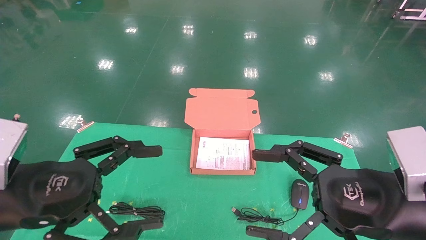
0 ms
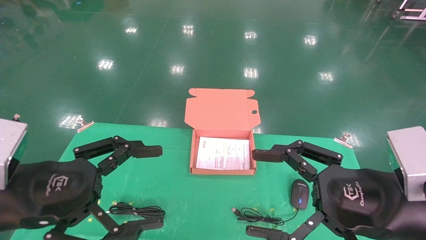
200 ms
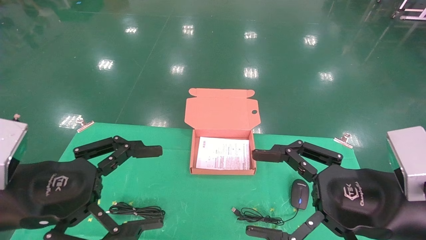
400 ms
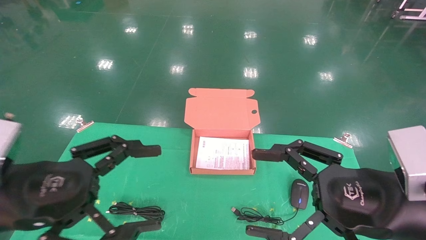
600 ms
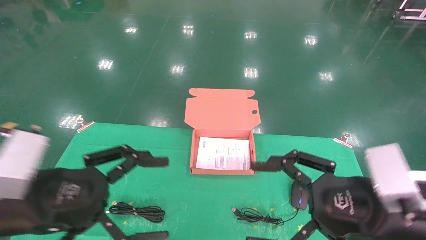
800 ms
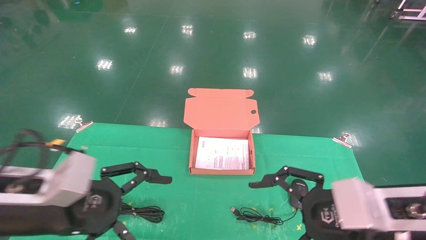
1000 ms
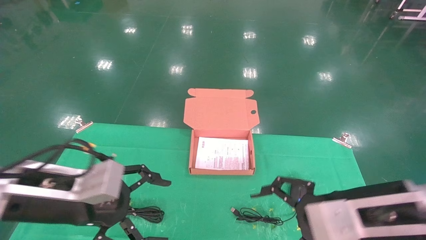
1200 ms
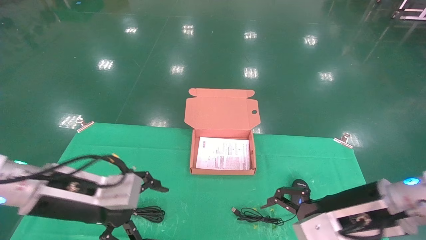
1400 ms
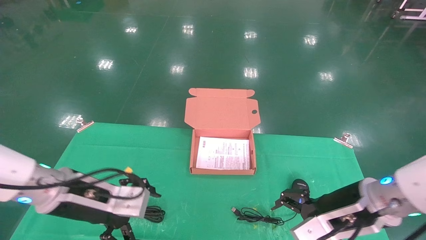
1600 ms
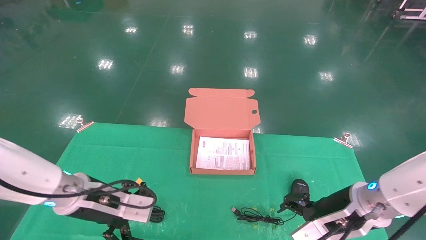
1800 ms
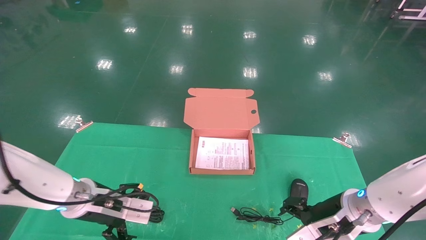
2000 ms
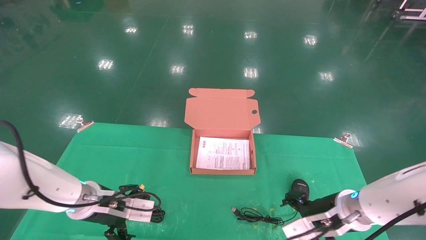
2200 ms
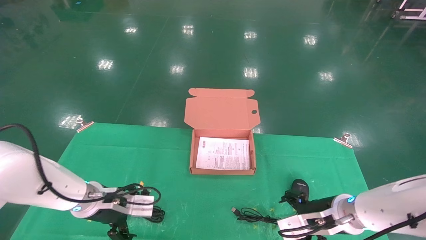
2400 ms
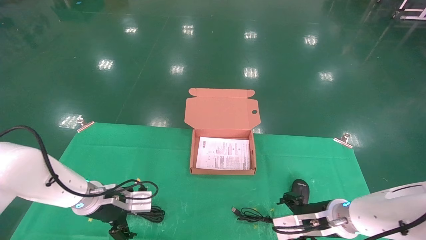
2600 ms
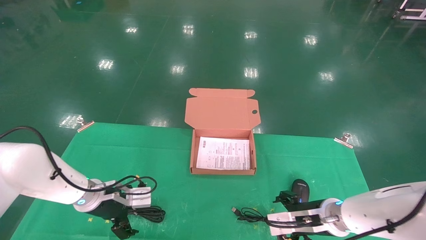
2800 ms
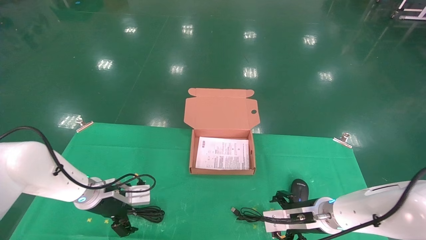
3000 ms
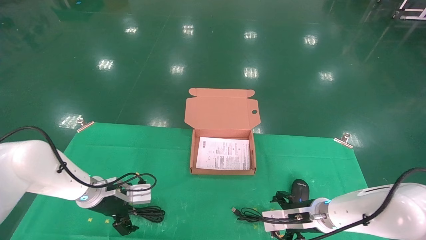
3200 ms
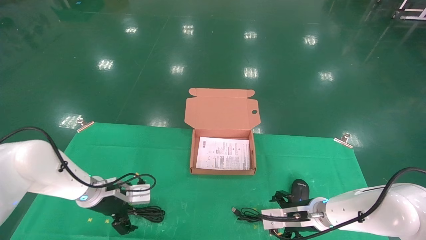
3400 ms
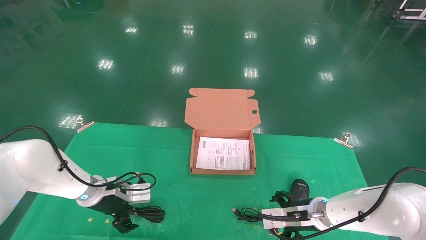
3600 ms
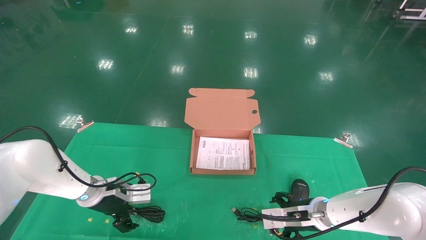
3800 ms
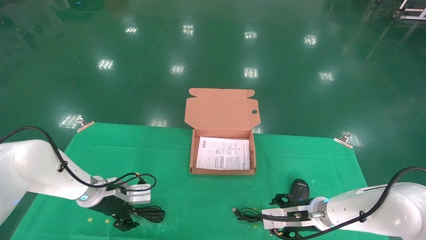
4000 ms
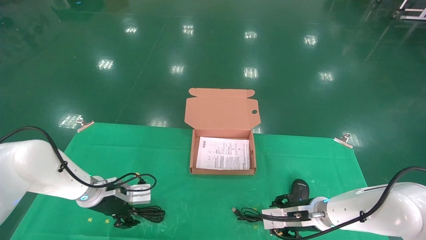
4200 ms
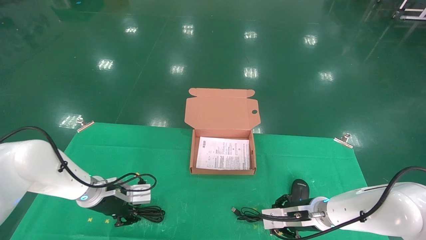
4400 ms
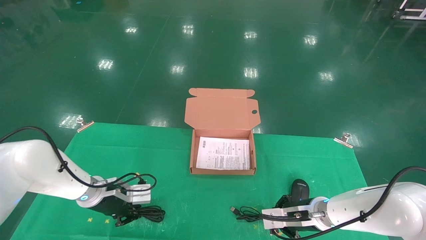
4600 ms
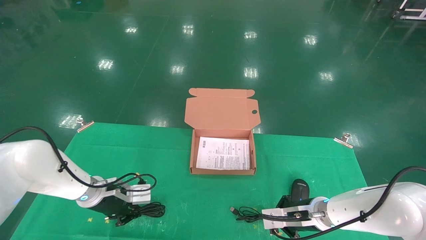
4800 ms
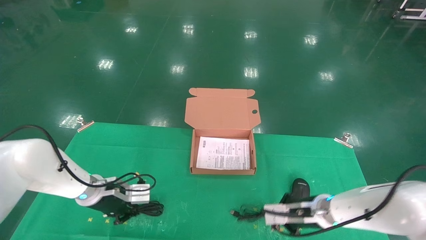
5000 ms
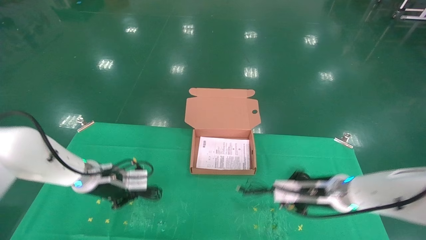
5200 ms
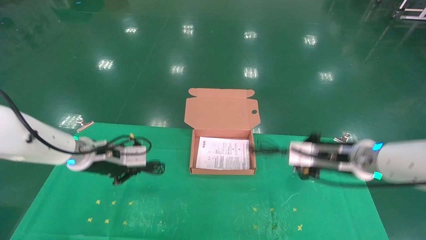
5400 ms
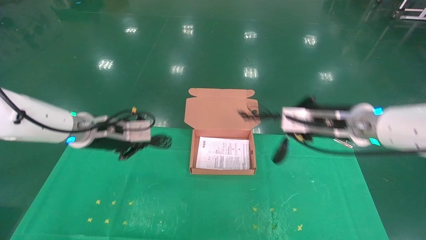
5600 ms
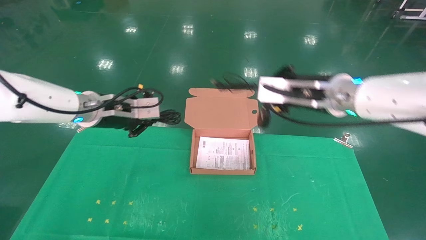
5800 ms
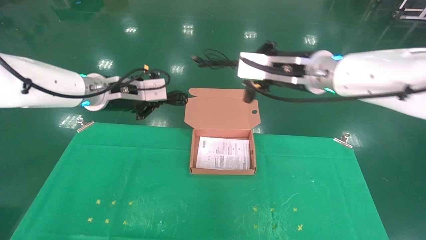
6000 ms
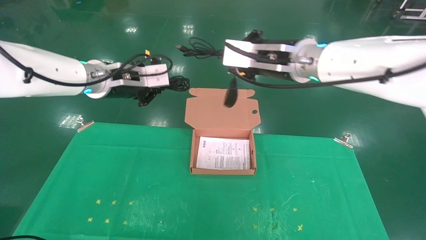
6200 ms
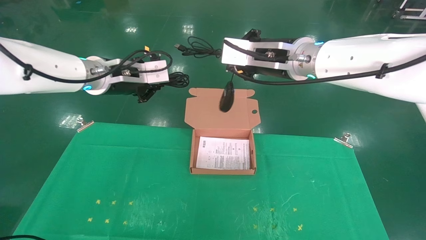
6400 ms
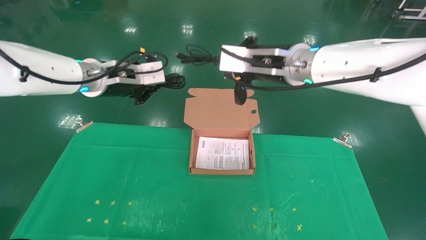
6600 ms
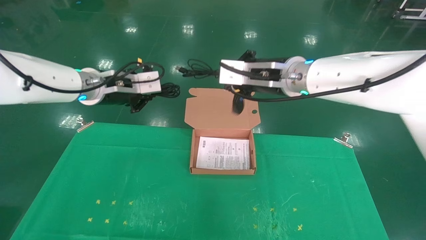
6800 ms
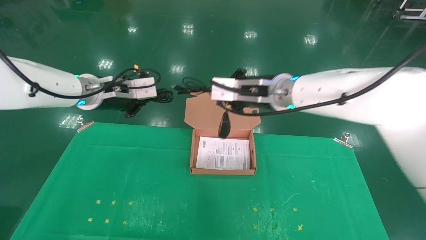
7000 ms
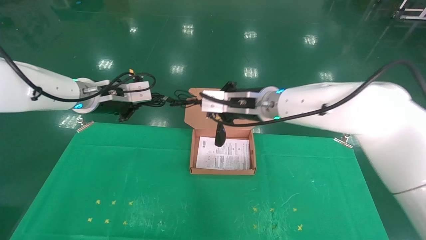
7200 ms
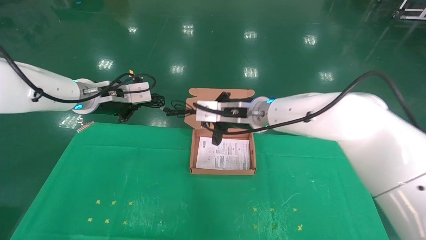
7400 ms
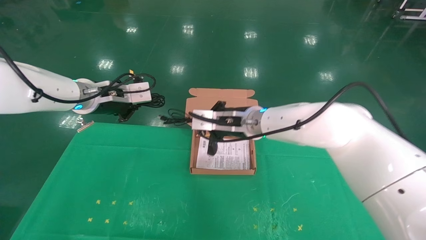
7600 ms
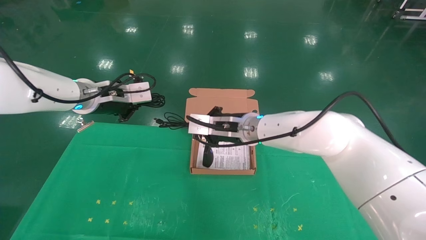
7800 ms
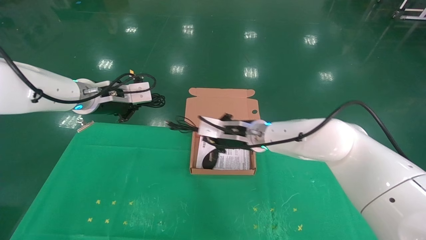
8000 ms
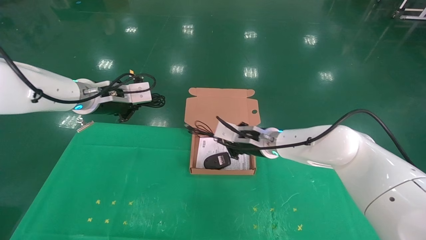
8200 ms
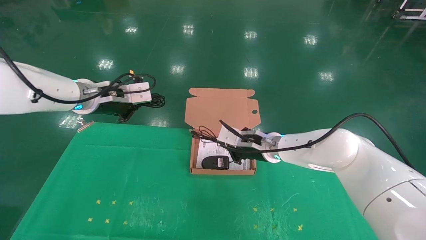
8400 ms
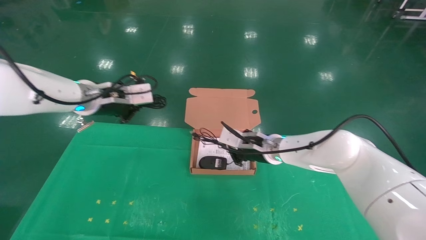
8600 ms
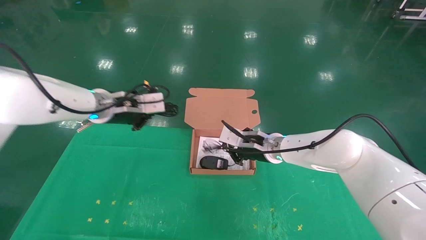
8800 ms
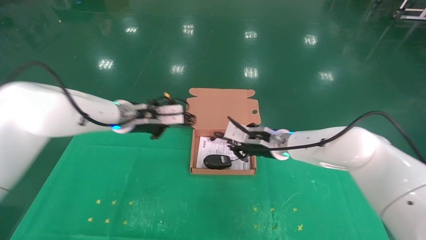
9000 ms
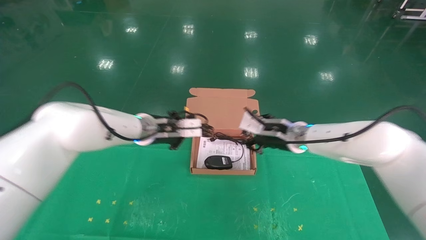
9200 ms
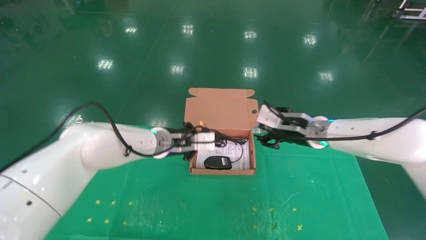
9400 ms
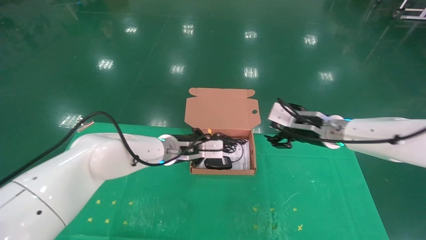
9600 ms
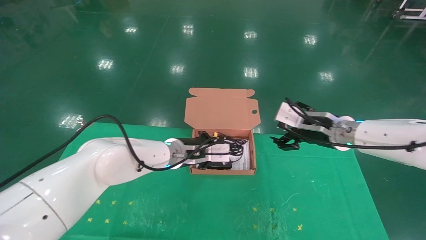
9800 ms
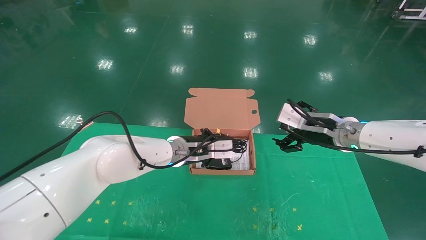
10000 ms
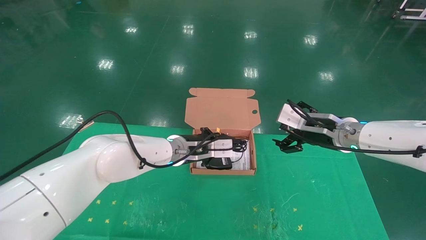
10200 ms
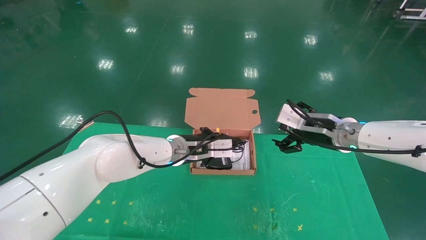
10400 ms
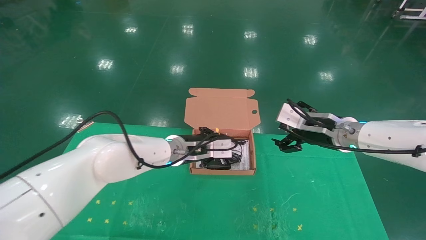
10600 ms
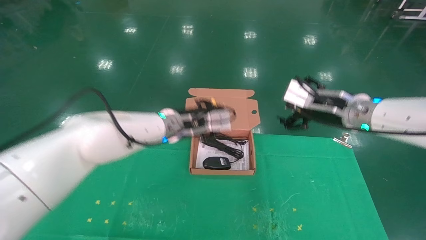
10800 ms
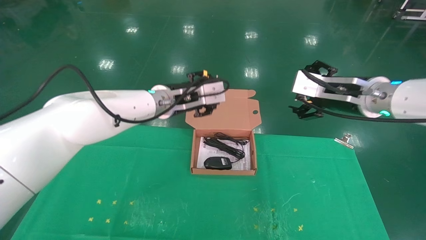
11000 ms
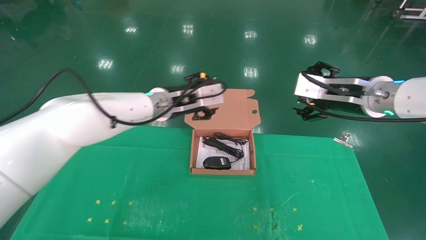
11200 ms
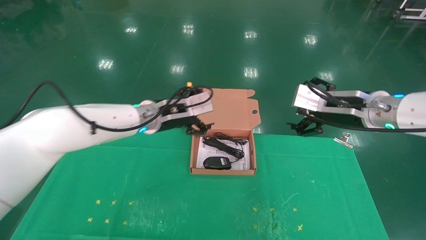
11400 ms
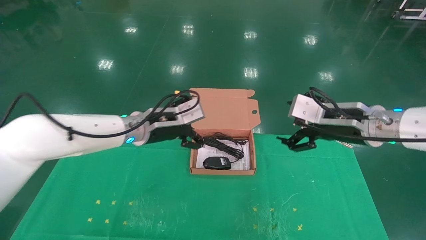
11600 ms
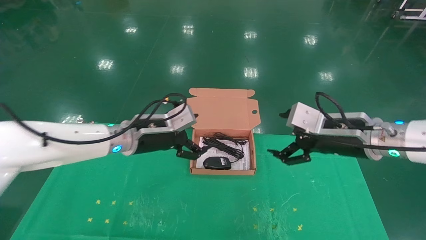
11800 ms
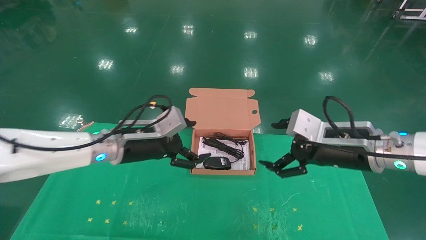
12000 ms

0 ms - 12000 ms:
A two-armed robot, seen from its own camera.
Task of the whole recording: grasp data cable left put into box grasp mouse right put into box.
Step, 600 ms - 5400 ms: Grab and pick up both the mouse and power cord from the accessory packaging area at the same time.
Step, 5600 ms - 10400 ms: Place the mouse and power cord into the box.
0 ms - 1600 ms: The grippers both shift forward and downward by some 10 cm.
1600 ms - 3000 ms: The right gripper travels downward and forward by some 15 cm, while the left gripper shifts some 15 cm forward and downward.
3000 ms - 4400 ms: The left gripper closes its fingers. The right gripper closes up.
4400 ms - 6000 ms: The grippers both shift upward by some 25 cm. The right gripper closes its fingers. The left gripper closes its fingers.
6000 ms - 7600 ms: The right gripper travels downward, to the left and forward by some 15 cm.
7600 ms - 9000 ms: Both grippers move to the right and downward, about 10 cm.
9000 ms - 10400 ms: The left gripper goes some 15 cm to the right and downward, while the right gripper is displaced to the right and backward by approximately 10 cm, and opens.
10400 ms - 12000 ms: The right gripper travels backward by approximately 10 cm, while the left gripper heads to the left and backward, covering approximately 15 cm, and opens.
